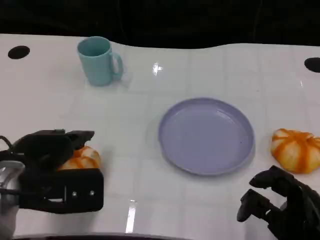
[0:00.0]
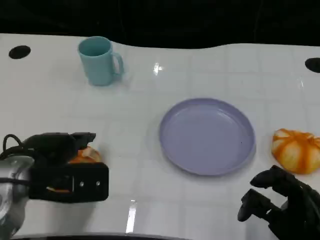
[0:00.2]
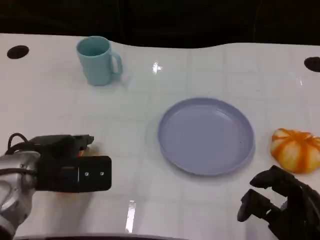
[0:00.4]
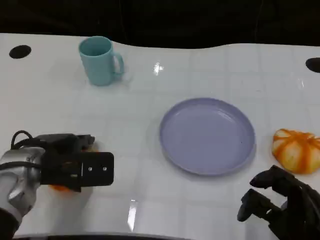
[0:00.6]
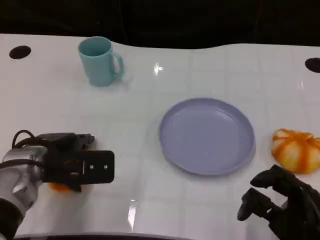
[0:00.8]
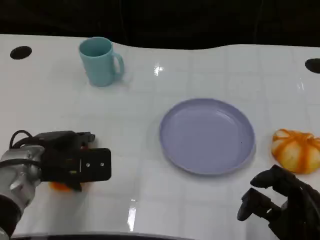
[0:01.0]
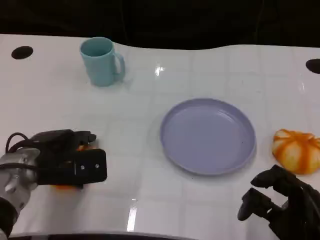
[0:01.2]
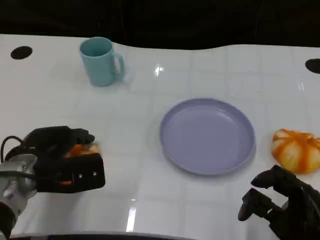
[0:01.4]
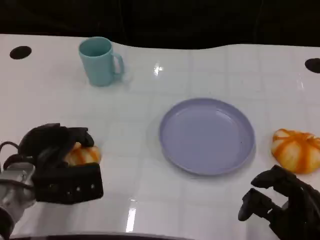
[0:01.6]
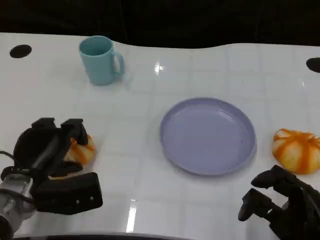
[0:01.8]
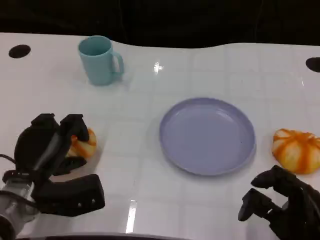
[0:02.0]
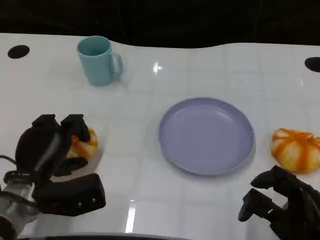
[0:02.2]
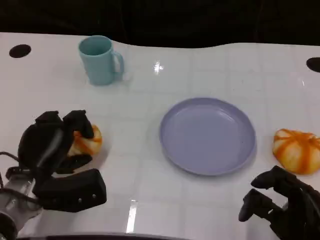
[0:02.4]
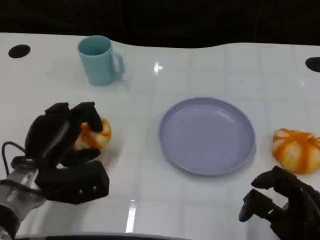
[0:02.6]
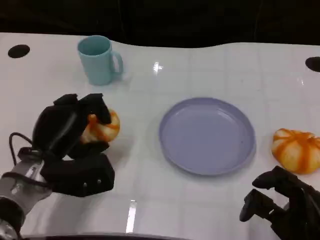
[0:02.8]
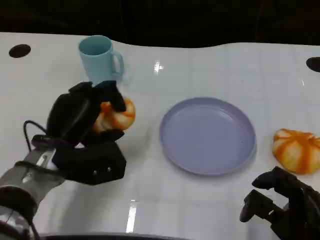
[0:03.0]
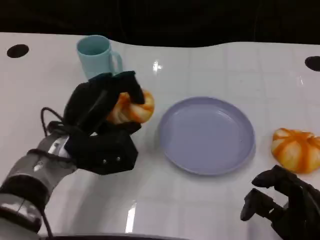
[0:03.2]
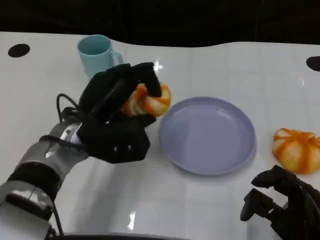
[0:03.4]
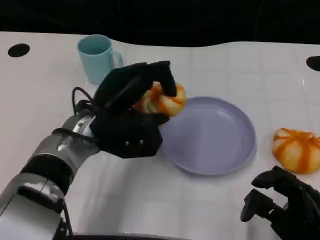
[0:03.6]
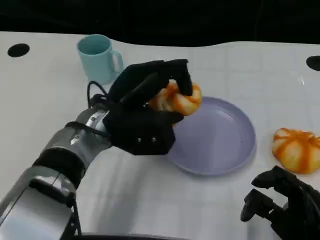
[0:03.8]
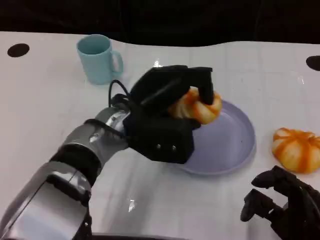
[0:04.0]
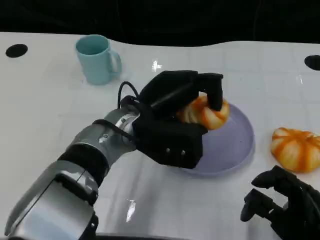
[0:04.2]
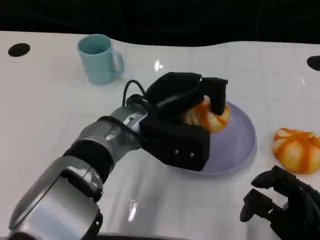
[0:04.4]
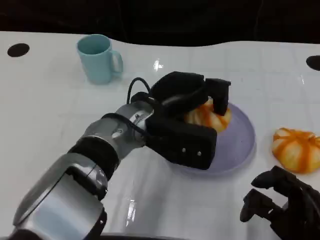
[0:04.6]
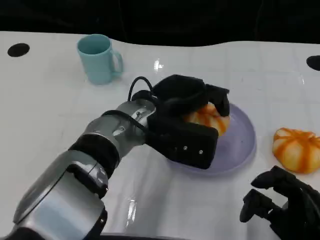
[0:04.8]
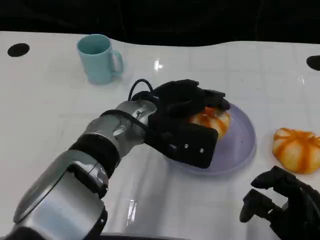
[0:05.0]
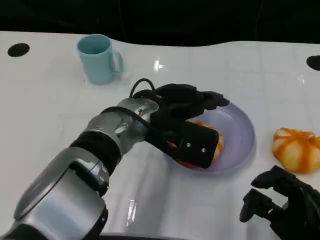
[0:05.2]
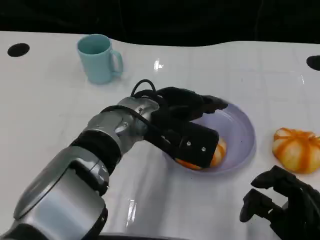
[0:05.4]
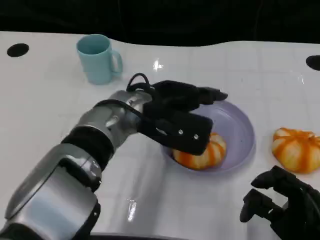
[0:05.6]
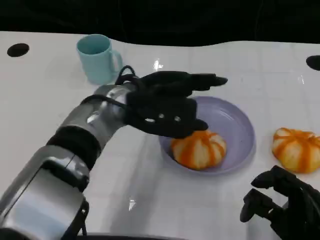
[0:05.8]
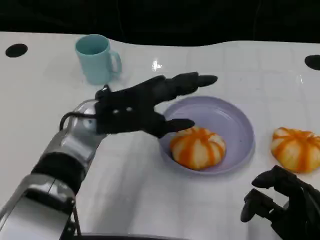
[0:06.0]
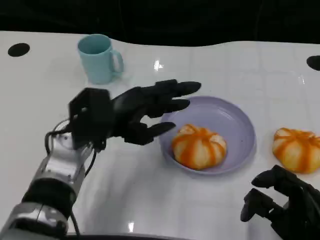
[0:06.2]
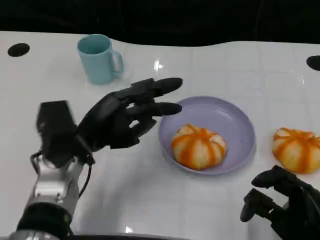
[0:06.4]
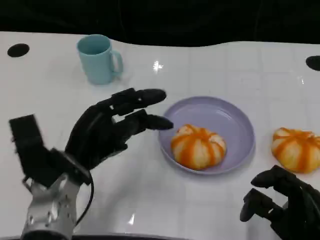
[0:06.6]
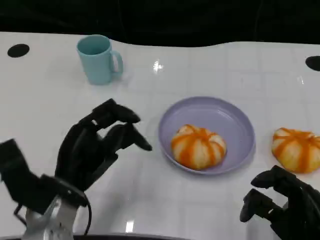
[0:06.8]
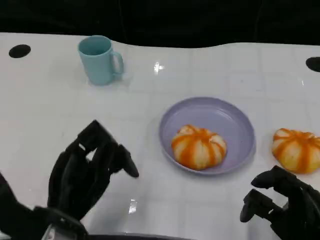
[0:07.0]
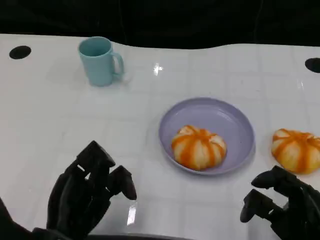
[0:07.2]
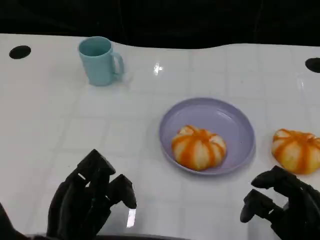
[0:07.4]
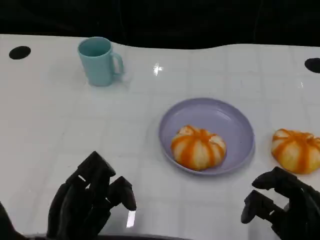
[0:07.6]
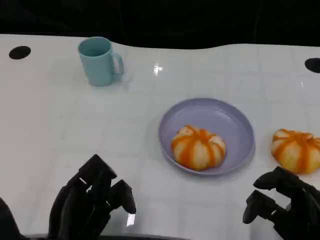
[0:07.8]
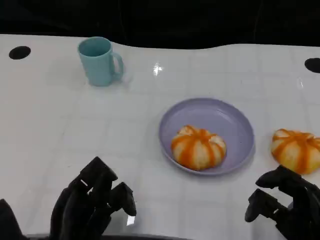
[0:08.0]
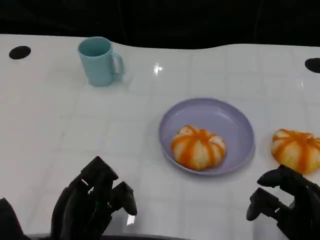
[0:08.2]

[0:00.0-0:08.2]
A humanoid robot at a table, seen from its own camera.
Task of the whole recording: Grasp the bread from the table and place it into the plate.
0:00.0 to 0:01.6: The left hand travels downward by some 10 cm.
0:01.6 to 0:03.2: The left hand heads to the right and upward, covering roughly 10 cm.
0:03.2 to 0:05.0: The left hand travels to the right by about 10 cm.
0:05.0 to 0:06.6: The left hand shifts roughly 15 cm to the left, downward and backward.
0:06.6 to 0:08.2: The left hand shifts about 10 cm backward.

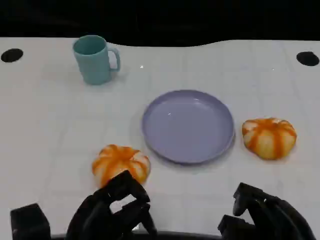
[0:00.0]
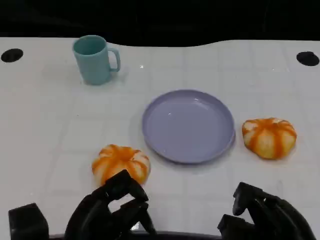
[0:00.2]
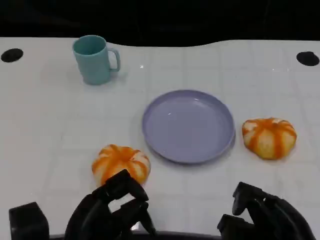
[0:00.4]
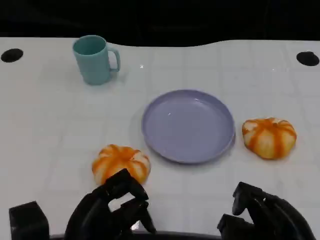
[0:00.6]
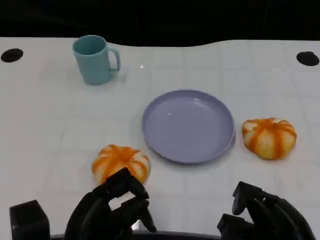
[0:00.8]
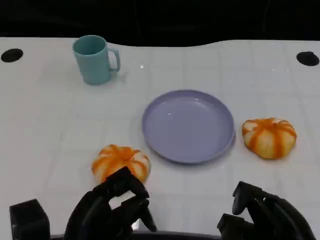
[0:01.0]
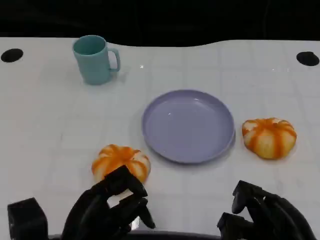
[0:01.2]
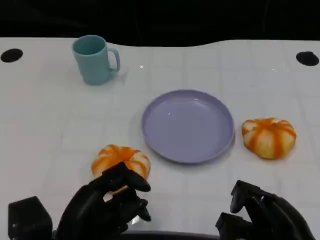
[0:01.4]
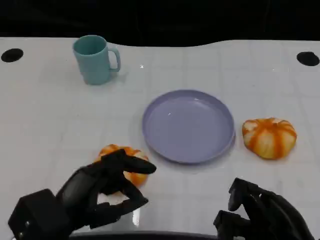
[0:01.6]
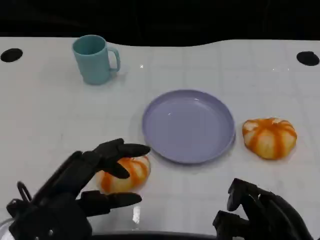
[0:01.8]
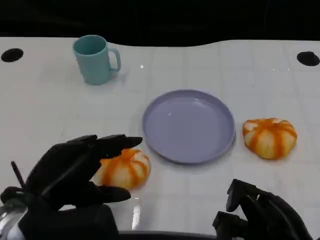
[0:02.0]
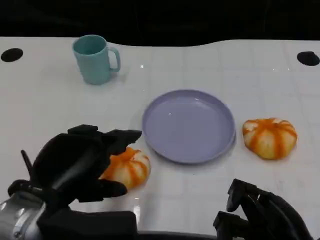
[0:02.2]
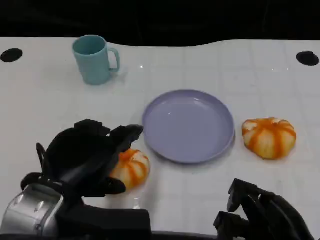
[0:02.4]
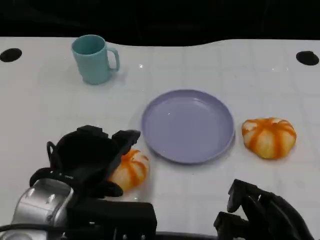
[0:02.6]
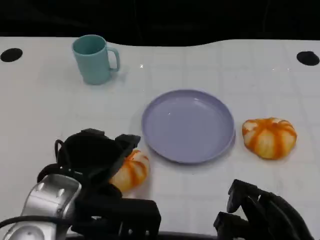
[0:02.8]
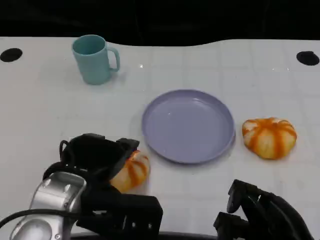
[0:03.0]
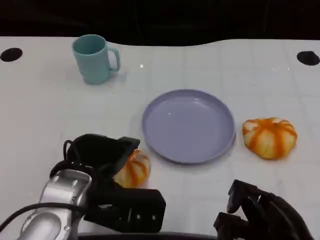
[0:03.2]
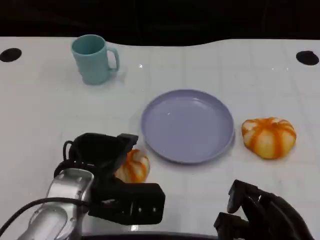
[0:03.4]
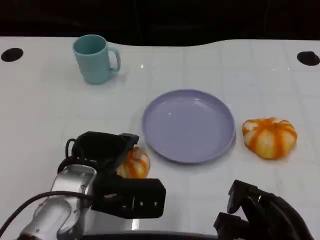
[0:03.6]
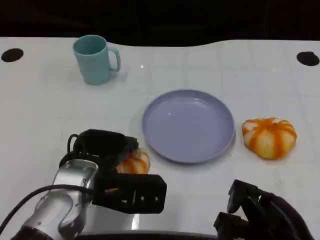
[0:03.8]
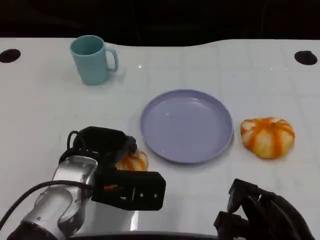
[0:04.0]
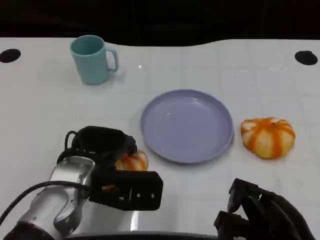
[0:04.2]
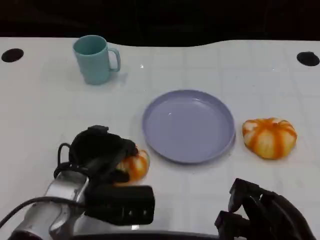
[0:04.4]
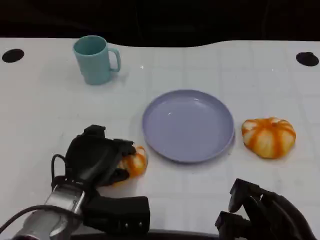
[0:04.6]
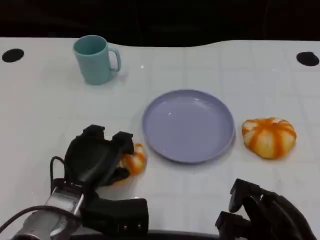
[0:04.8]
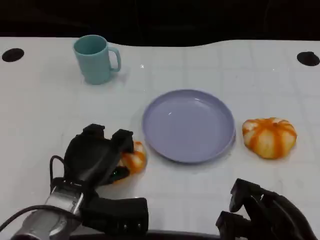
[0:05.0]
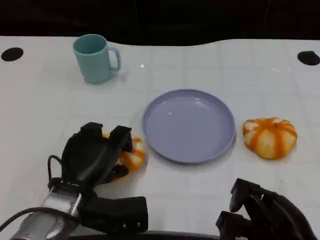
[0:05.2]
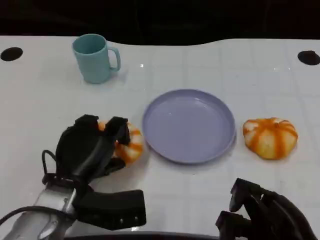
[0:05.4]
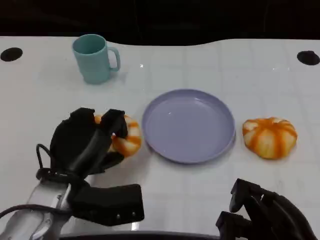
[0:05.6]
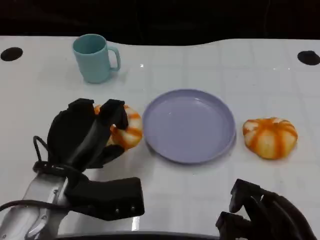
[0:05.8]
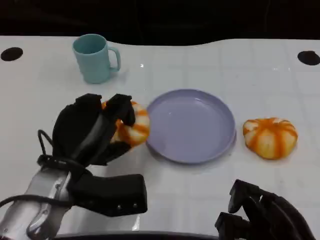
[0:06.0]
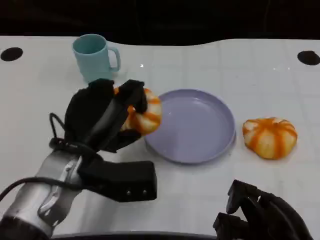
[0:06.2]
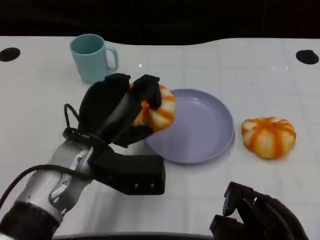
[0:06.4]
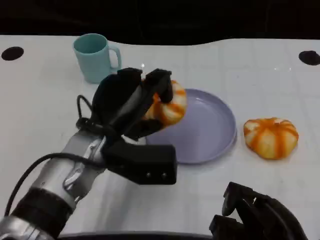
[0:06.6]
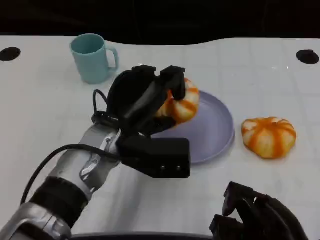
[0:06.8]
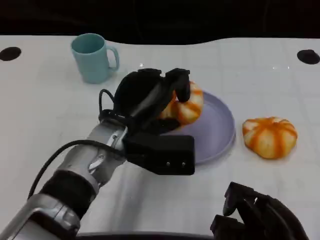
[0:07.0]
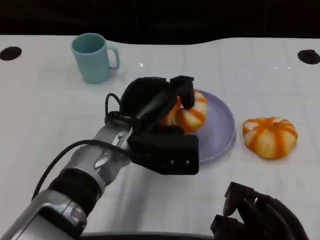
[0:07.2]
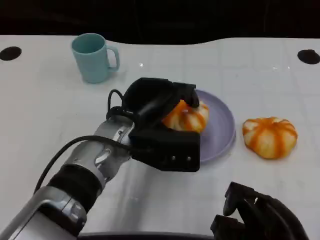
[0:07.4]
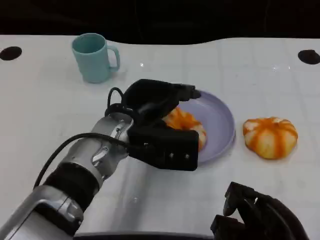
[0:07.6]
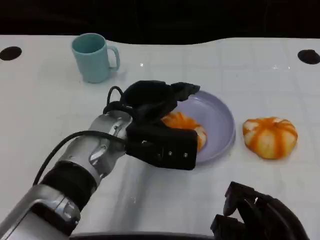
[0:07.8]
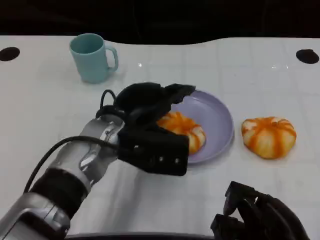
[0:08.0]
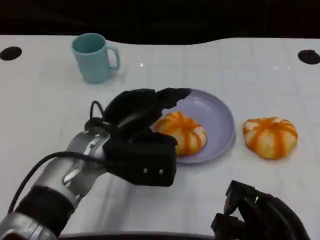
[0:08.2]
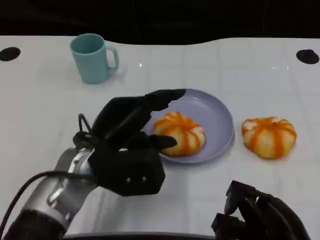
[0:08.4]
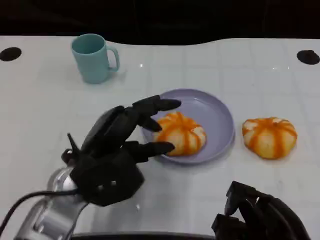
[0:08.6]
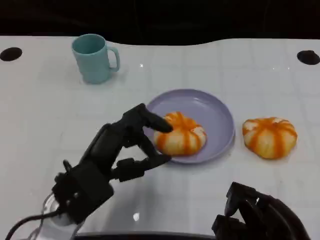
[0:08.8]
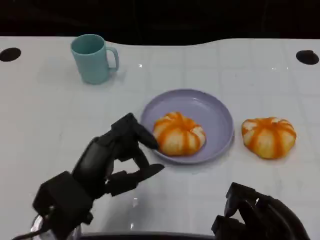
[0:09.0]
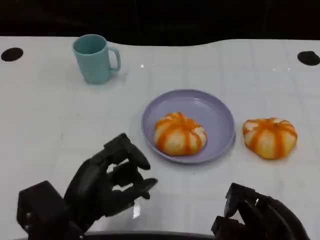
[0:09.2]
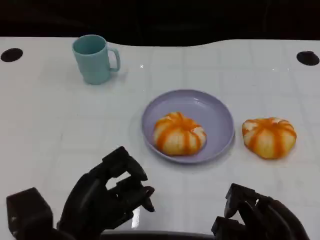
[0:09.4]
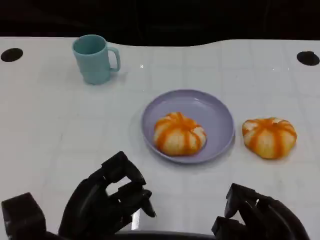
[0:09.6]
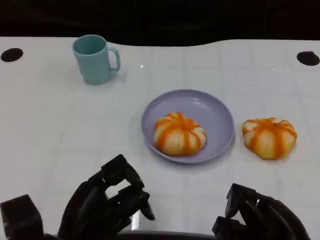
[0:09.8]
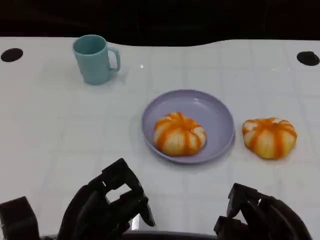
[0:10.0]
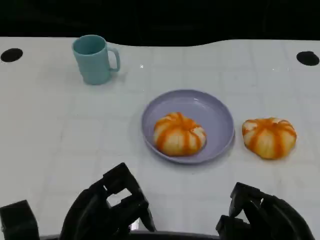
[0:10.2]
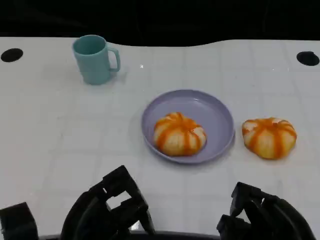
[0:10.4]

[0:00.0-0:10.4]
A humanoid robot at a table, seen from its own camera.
Task of the whole recording: Grasp the bread from the table and place it into the plate.
0:00.0 to 0:01.4: There are only small adjustments of the hands.
0:01.4 to 0:03.0: The left hand travels upward and forward by some 10 cm.
0:03.0 to 0:04.4: The left hand heads downward, covering some 5 cm.
0:06.0 to 0:07.4: The left hand heads to the right and forward, covering approximately 10 cm.
0:07.4 to 0:09.0: The left hand shifts roughly 15 cm backward and to the left.
0:09.0 to 0:10.4: The left hand shifts by approximately 5 cm.

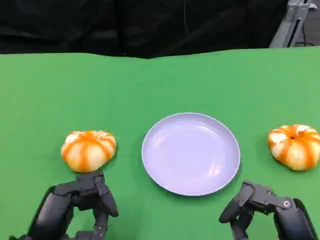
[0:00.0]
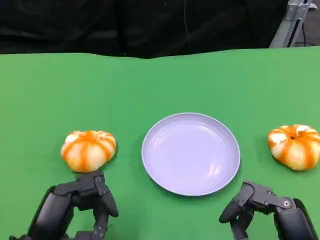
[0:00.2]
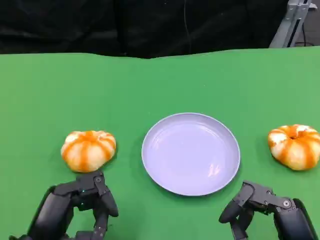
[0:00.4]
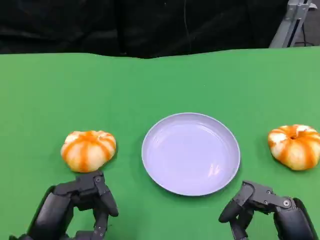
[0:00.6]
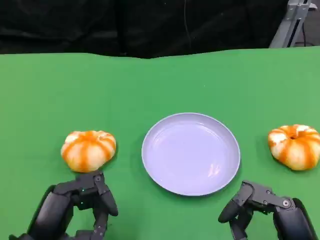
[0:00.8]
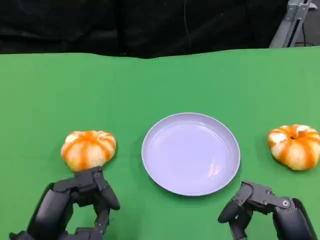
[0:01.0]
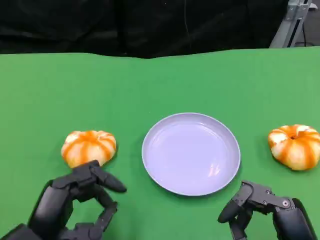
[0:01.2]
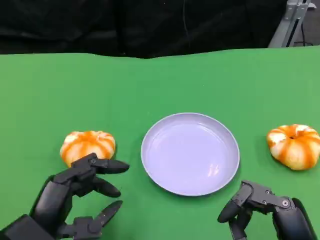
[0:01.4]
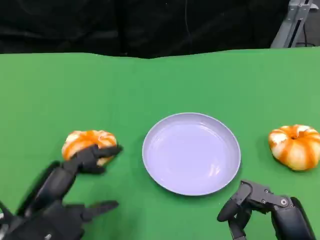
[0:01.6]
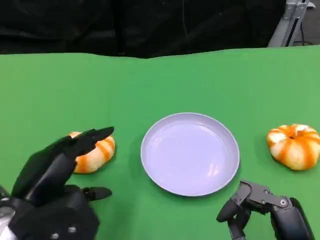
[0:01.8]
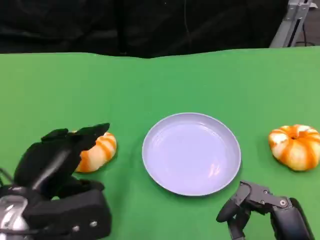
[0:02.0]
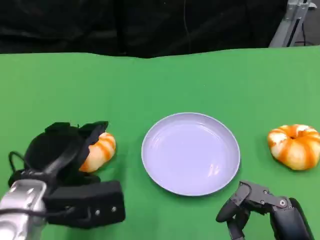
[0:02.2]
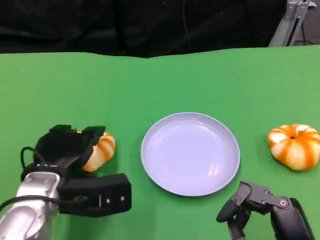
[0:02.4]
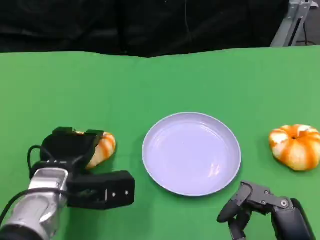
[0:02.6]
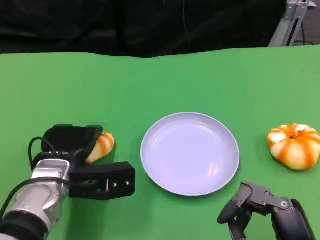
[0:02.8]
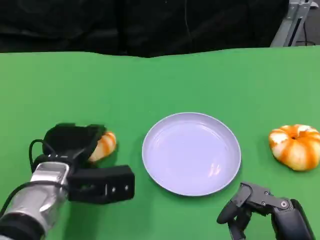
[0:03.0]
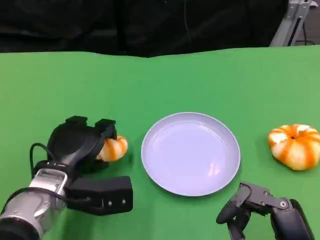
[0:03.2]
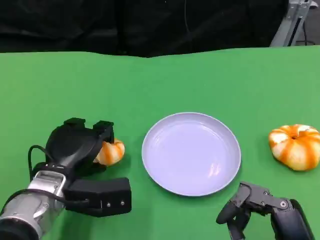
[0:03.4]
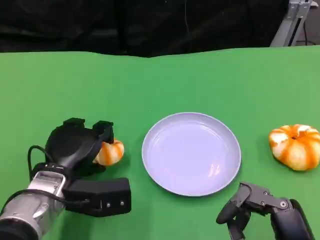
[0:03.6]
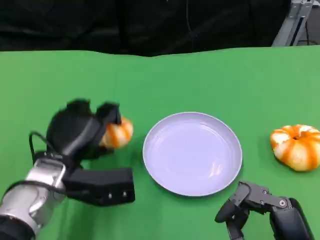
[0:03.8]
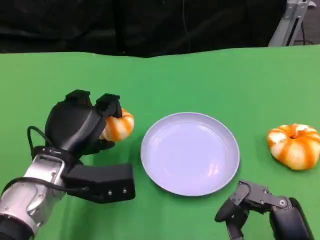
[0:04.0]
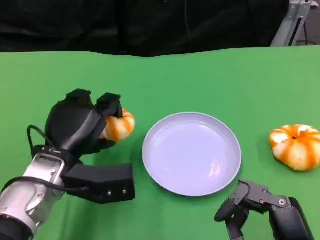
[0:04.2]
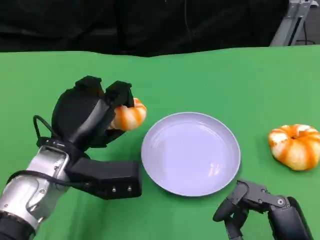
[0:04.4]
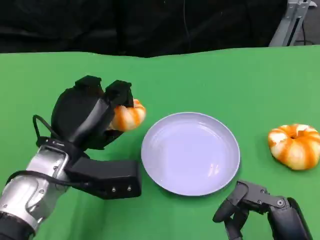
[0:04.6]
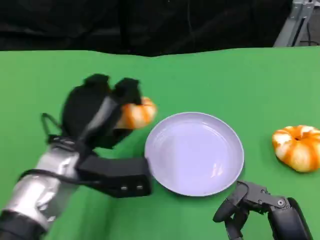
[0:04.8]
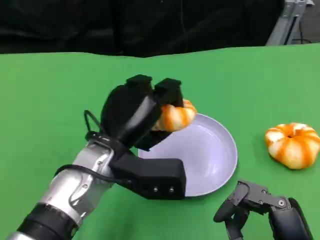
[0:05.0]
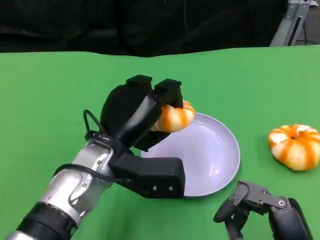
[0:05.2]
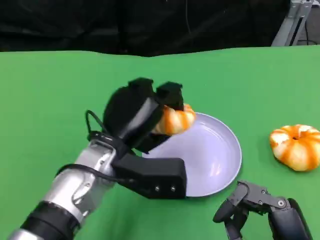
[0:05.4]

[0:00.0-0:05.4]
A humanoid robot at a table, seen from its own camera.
Task of the whole recording: Grasp the bread from the table and place it into the plate.
0:00.0 to 0:01.4: The hands stay close to where they were, moving slightly.
0:01.4 to 0:02.8: The left hand travels forward by some 15 cm.
0:04.0 to 0:05.4: The left hand moves to the right, some 10 cm.
